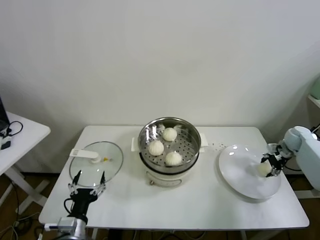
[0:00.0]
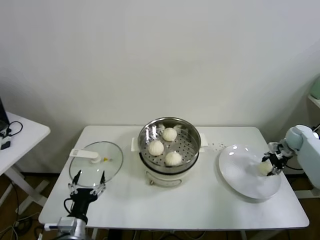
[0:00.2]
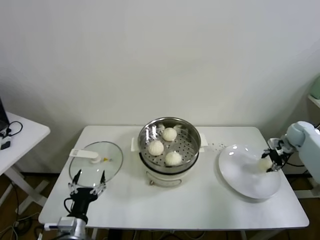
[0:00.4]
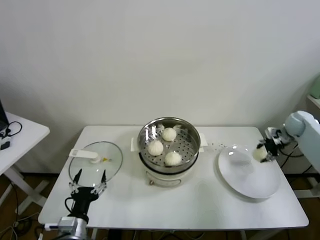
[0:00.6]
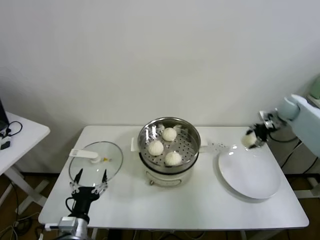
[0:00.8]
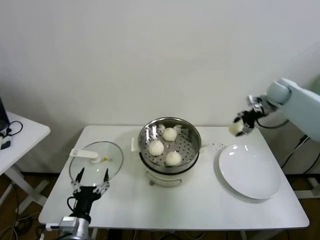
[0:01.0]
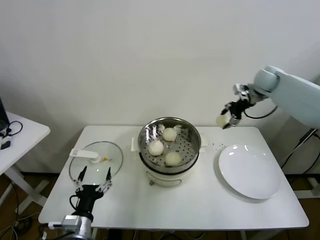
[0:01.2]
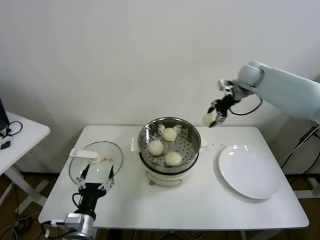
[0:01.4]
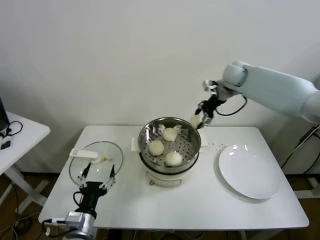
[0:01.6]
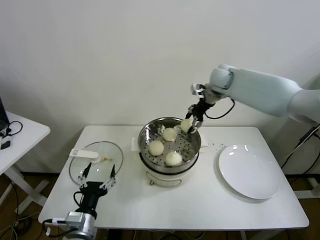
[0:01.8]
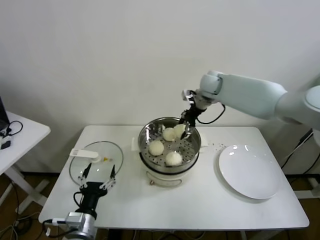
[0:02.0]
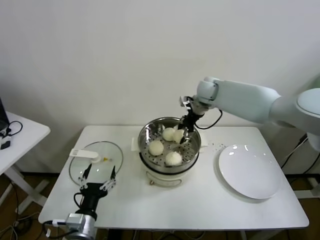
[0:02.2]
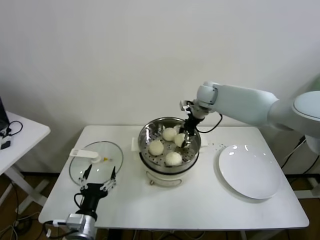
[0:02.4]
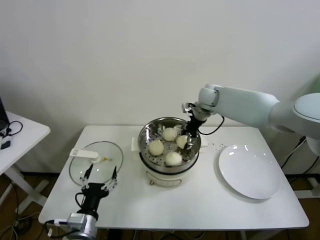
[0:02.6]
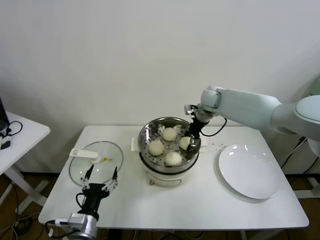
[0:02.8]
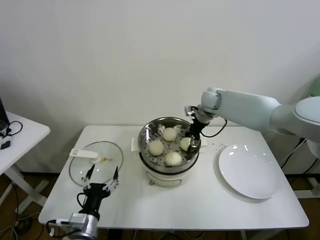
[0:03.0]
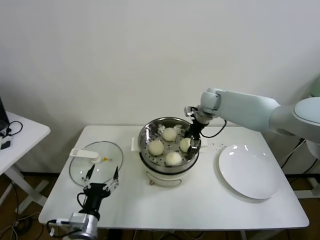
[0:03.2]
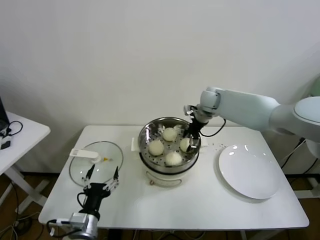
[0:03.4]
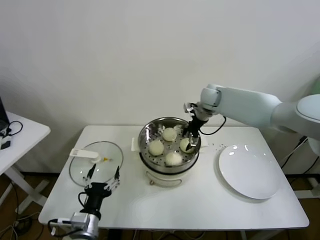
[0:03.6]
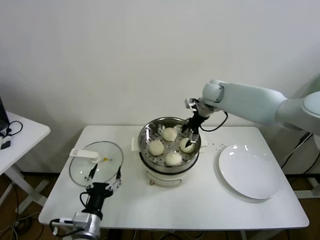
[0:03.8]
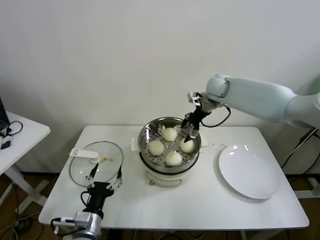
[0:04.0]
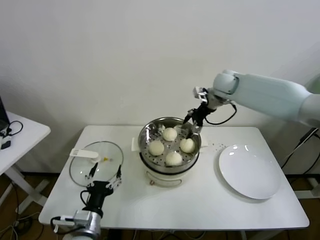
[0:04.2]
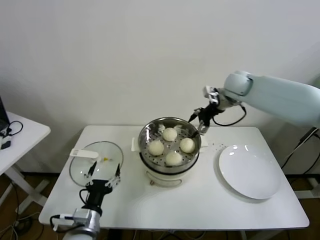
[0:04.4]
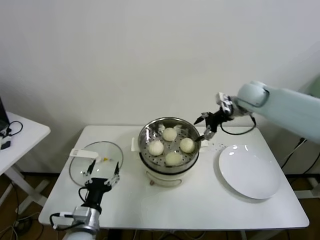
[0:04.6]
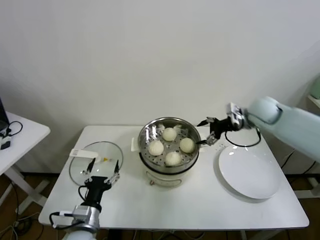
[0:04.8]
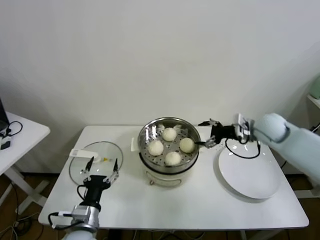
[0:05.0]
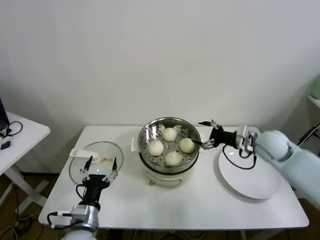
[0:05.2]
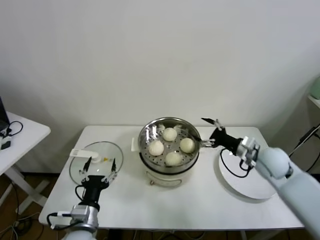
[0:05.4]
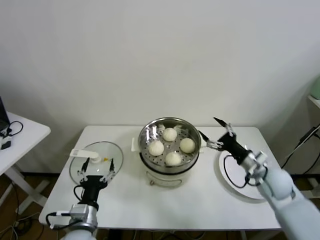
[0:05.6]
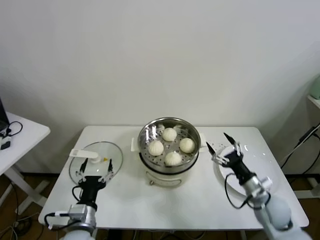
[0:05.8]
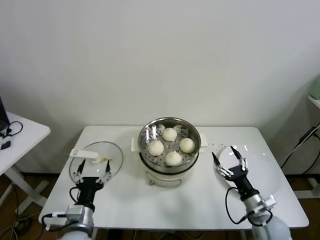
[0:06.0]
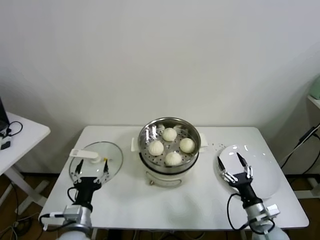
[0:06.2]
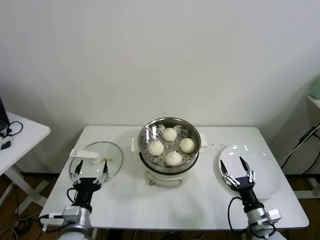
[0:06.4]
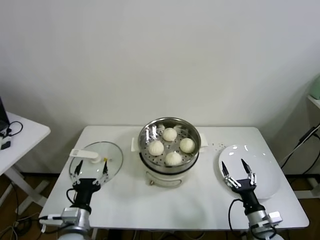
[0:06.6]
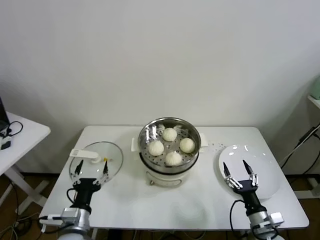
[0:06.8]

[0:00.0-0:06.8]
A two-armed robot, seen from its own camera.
Task of the whole recording: take steamed baozi put them in steamer.
Step, 0:00.0 to 0:03.2: Place the baozi on the steamer with right gripper.
0:00.0 to 0:01.4: The right gripper is displaced upward, to the left and forward by approximately 35 cm.
0:01.4 to 0:02.8: The right gripper goes about 15 cm to the left and downward.
0:02.8 to 0:04.0: The right gripper opens.
0:04.0 to 0:05.4: The right gripper goes about 30 cm backward, to the right and downward.
0:05.4 to 0:06.8: The right gripper shifts some 25 cm backward and downward.
